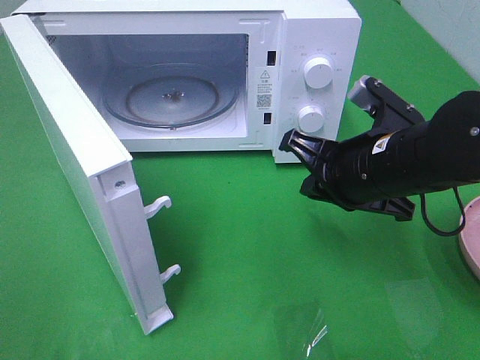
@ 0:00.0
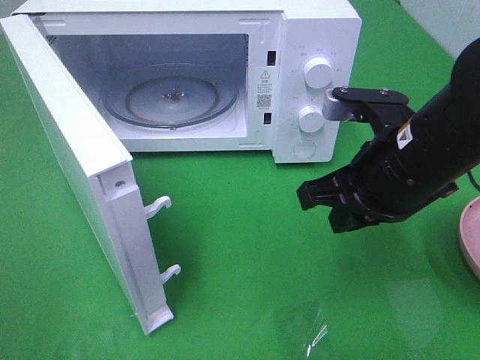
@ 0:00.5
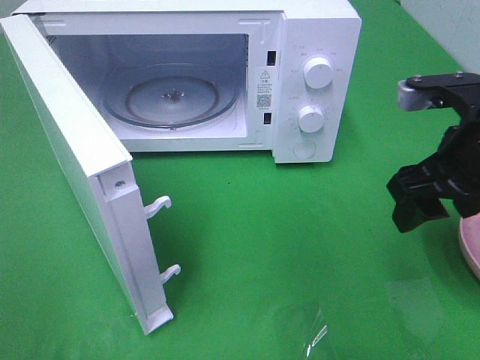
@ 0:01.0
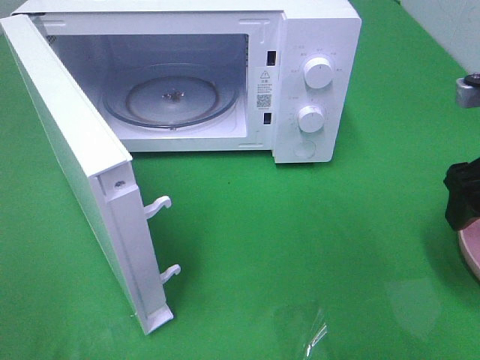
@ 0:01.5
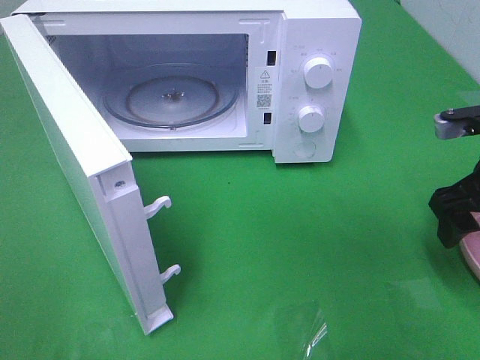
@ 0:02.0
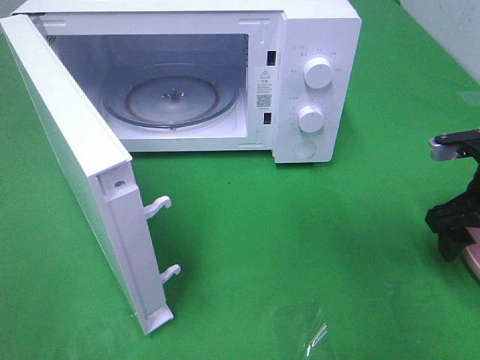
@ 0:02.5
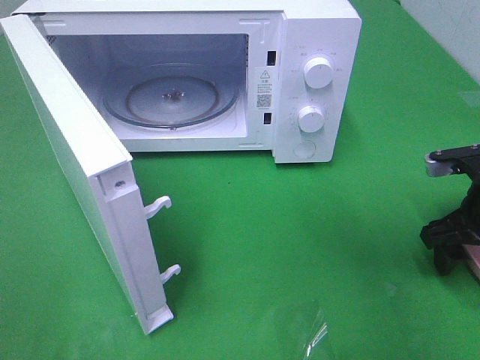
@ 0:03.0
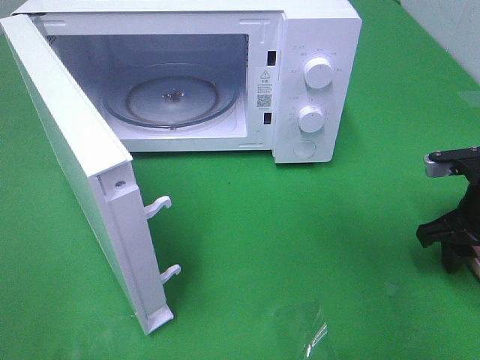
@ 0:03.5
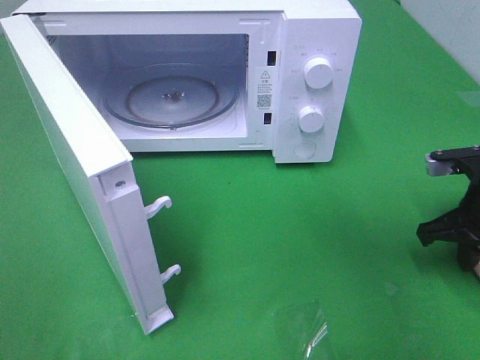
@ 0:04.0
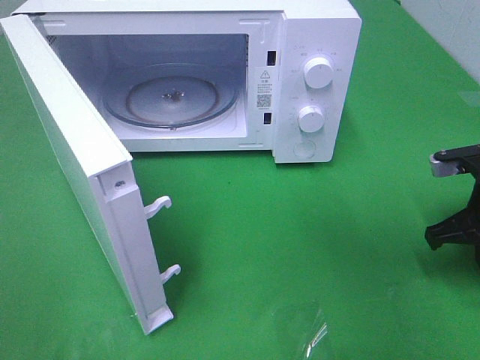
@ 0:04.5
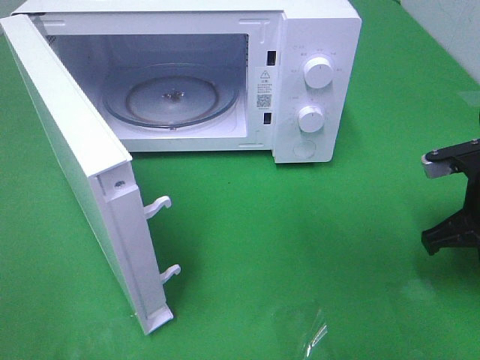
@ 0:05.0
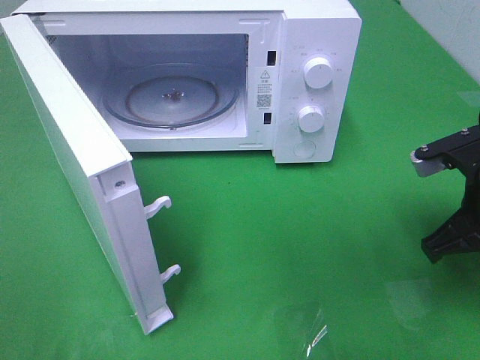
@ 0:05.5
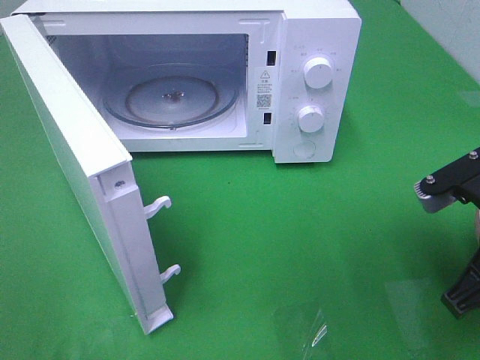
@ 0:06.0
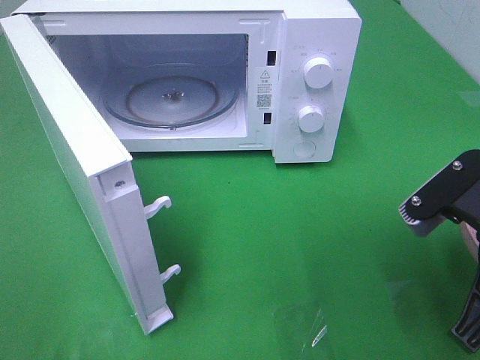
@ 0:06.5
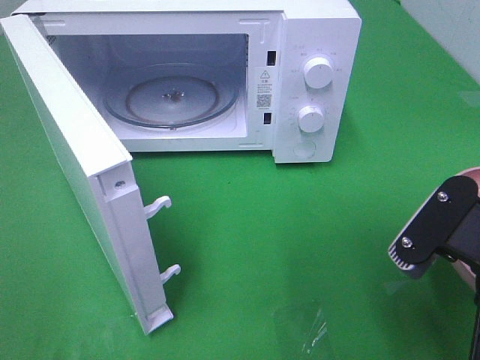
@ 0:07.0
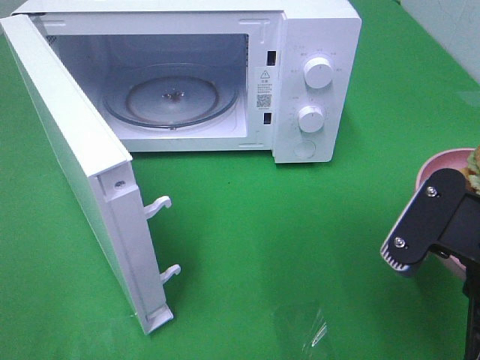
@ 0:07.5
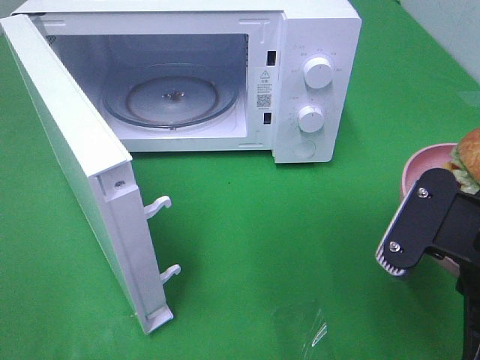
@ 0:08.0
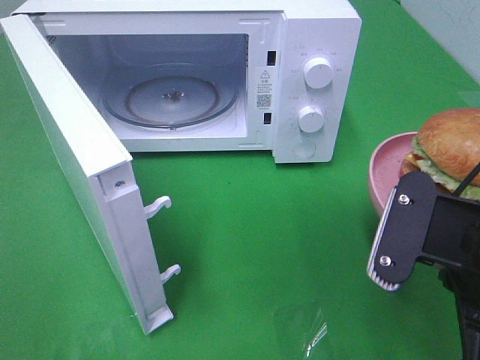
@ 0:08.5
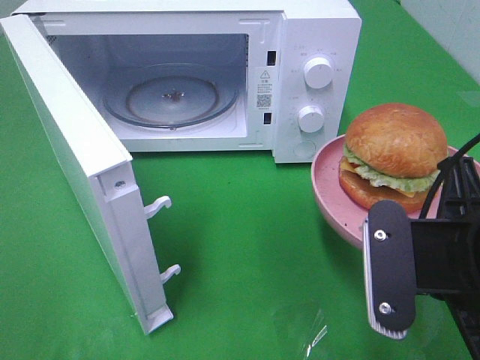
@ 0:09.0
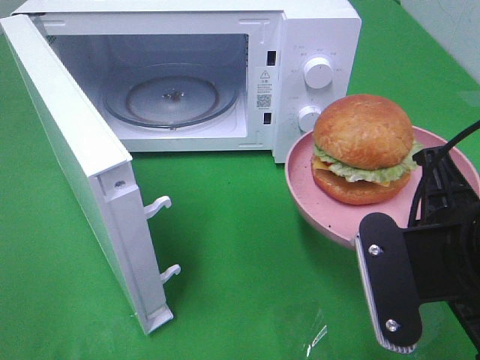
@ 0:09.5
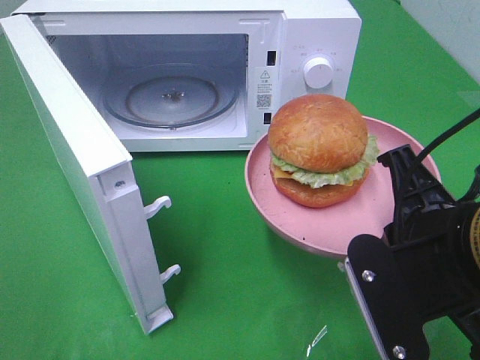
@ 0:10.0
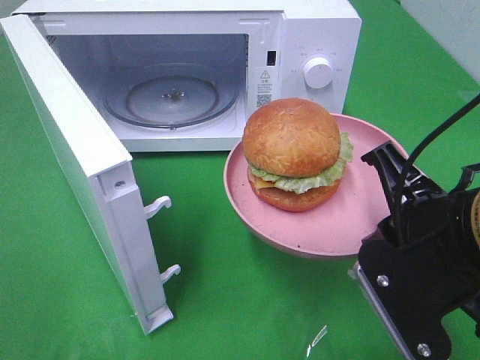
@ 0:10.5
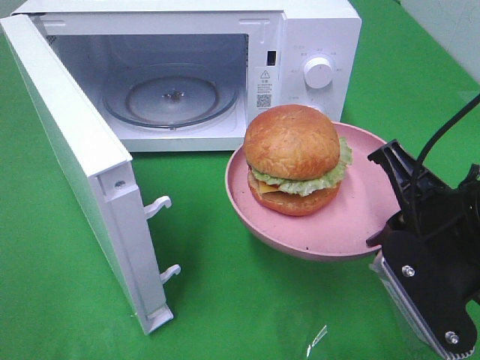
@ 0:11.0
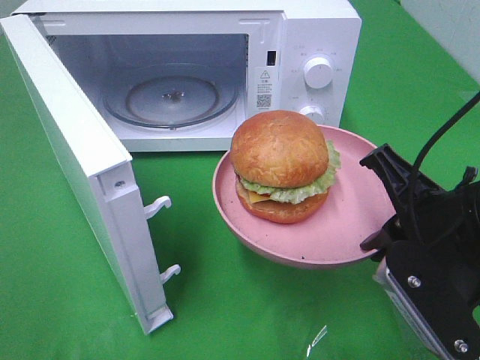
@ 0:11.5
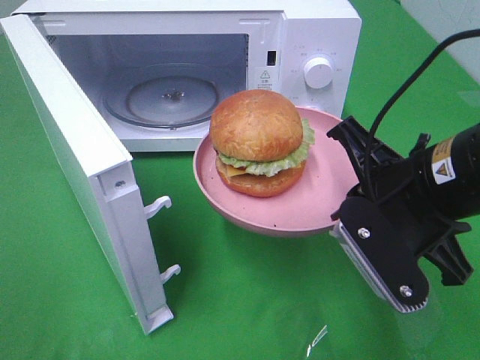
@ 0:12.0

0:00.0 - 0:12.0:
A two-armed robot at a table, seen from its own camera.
Task of the whole recording: Heat the burger.
Step, 0:00.0 - 0:05.0: Right hand: grab the plate with the hamburger.
0:00.0 - 0:02.0: The right gripper travels to the right by roughly 15 cm, and opens up.
0:02.0 - 0:04.0: The right gripper moves downward, roughly 5 cm, and closes.
0:04.0 - 0:06.0: The right gripper travels backward, upward and to the left by some 15 cm.
0:06.0 - 0:08.0: The right gripper moves roughly 5 cm.
0:10.0 - 0:12.0: The right gripper is displaced forward by about 5 cm.

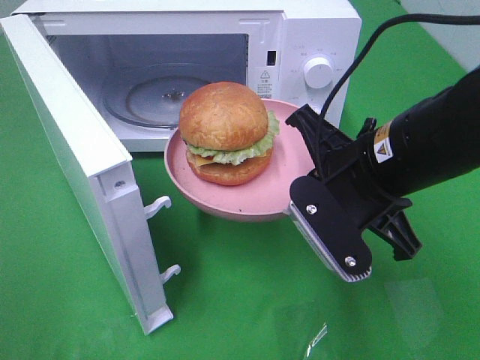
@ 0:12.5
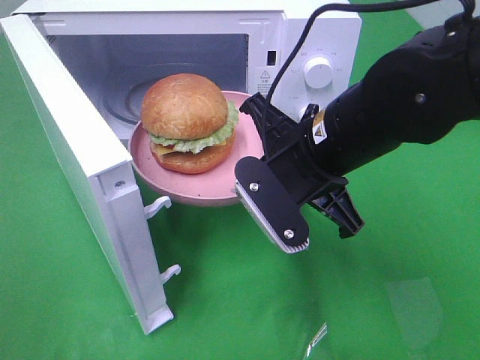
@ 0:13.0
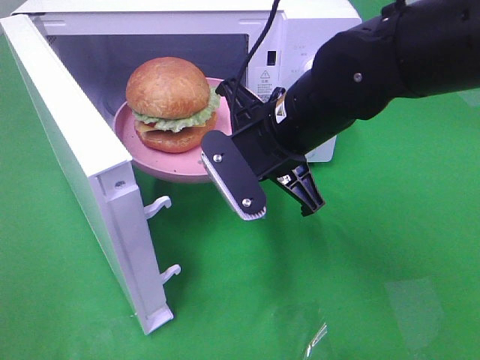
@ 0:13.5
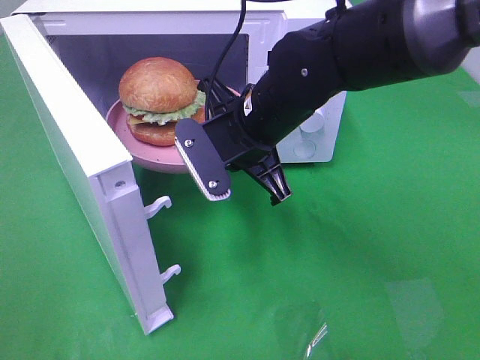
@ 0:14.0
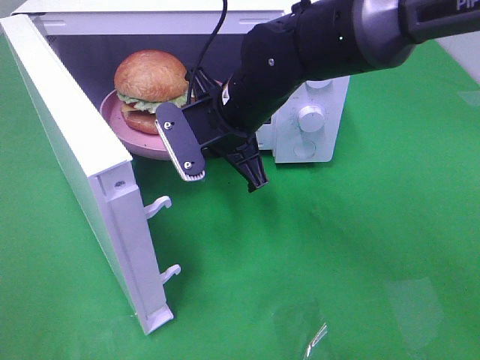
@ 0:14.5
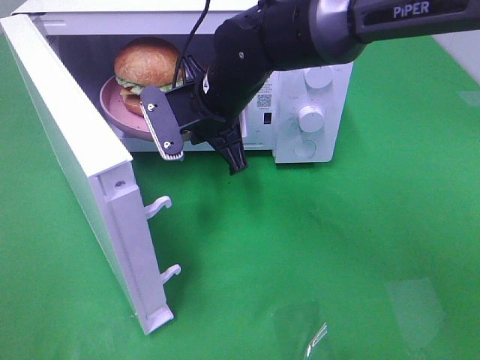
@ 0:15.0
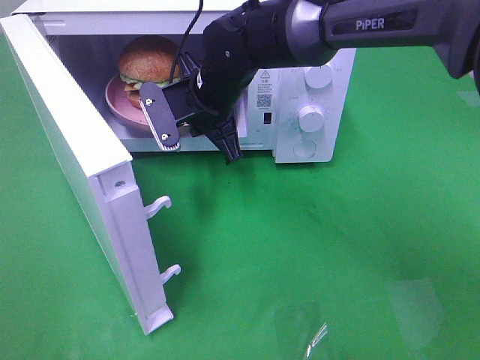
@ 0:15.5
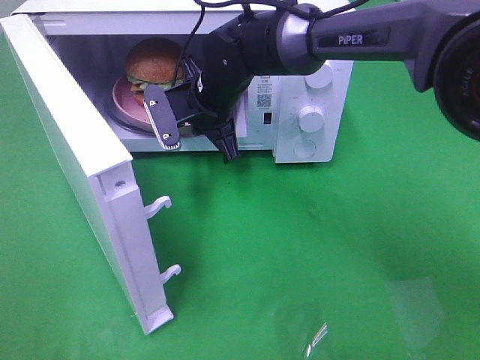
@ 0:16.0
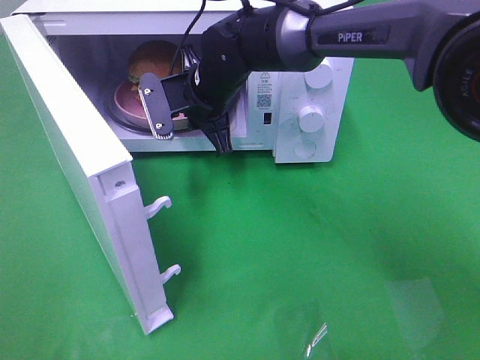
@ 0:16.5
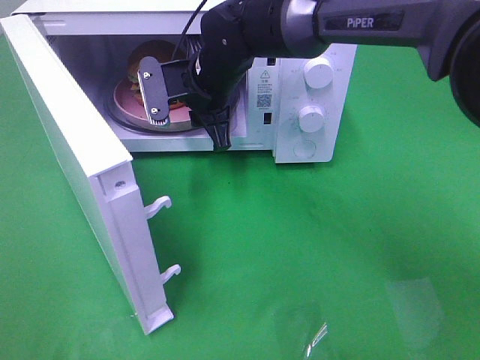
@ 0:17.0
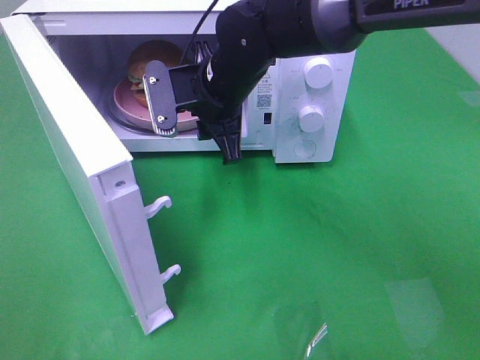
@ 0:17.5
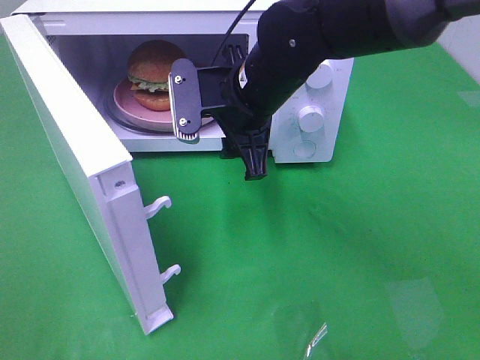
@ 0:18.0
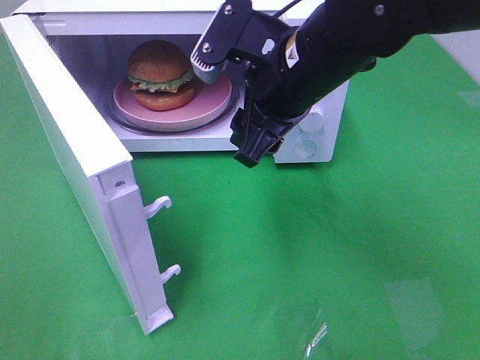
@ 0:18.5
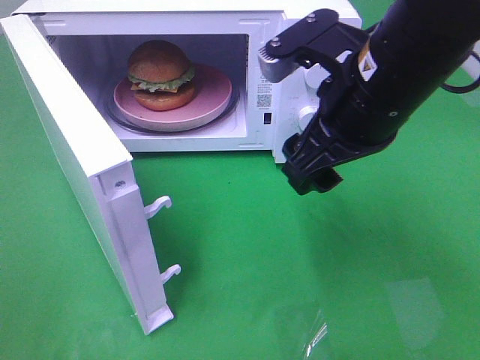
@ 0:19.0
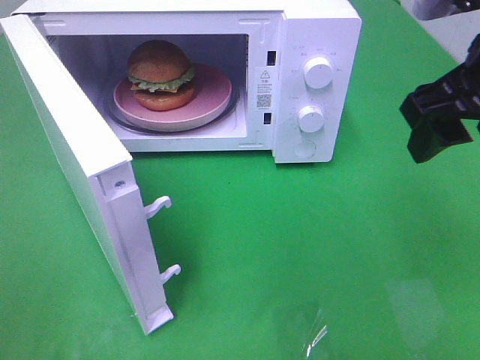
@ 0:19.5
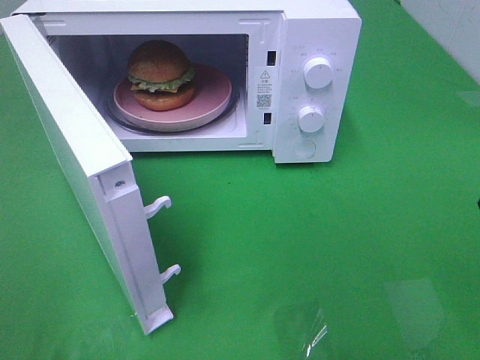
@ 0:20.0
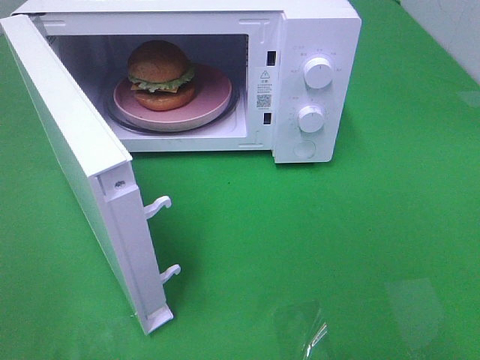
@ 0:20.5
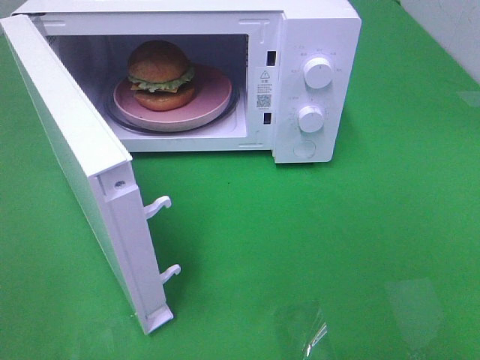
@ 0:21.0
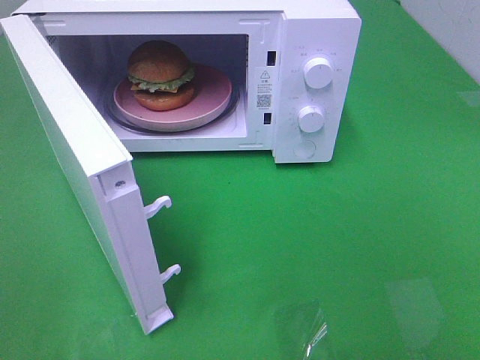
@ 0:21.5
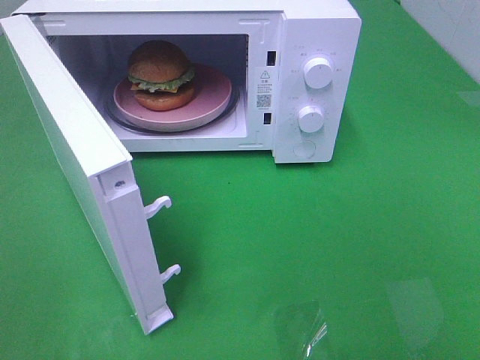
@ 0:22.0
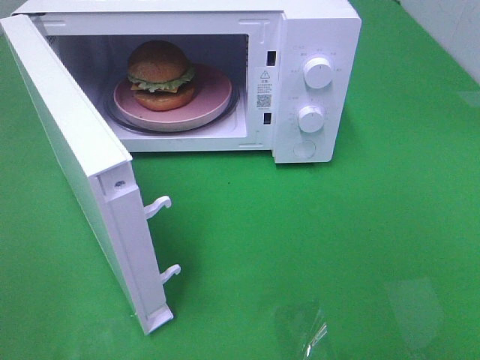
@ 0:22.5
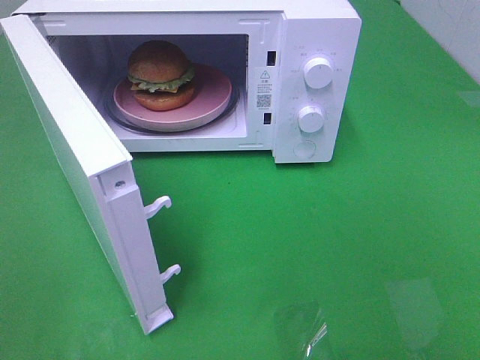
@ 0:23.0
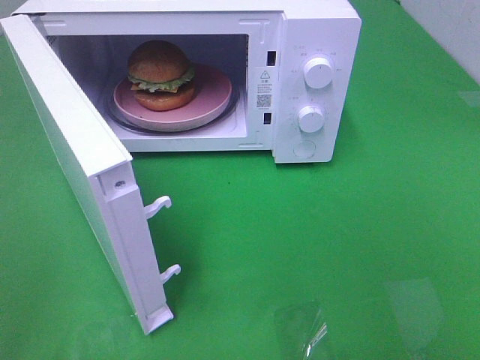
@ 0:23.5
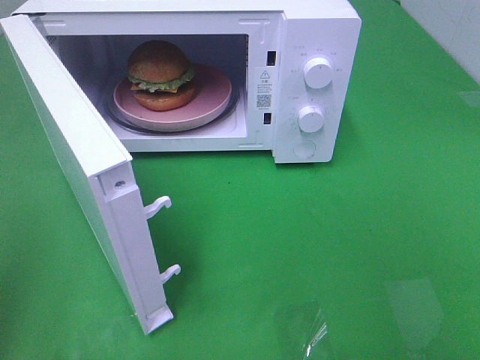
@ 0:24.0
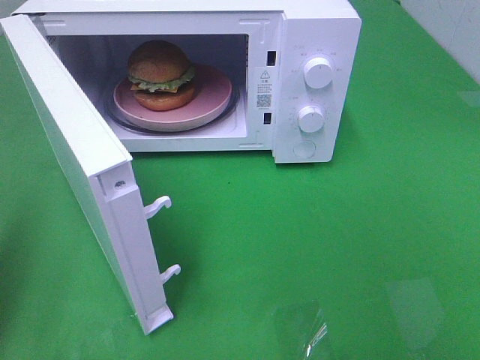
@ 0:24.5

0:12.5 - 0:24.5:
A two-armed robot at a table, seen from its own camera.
Task of the whole recording: Heat the burger.
Step, 0:12.5 - 0:17.0: Right hand: place the plate in the microwave.
0:12.5 - 0:14.5: The right gripper heads forward and to the left, covering about 15 cm.
0:14.5 - 0:16.5: The right gripper is displaced forward by approximately 10 cm.
0:16.5 - 0:18.5: The right gripper shifts approximately 20 cm backward, to the right and upward, and opens its fingers.
0:18.5 - 0:20.5: The right gripper is displaced backward and to the right by about 30 cm.
0:22.5 - 0:24.5: The left gripper is displaced forward by some 15 cm, and closes.

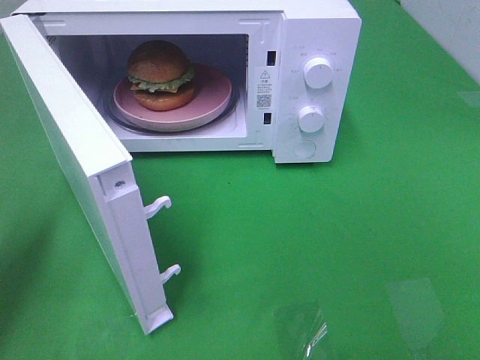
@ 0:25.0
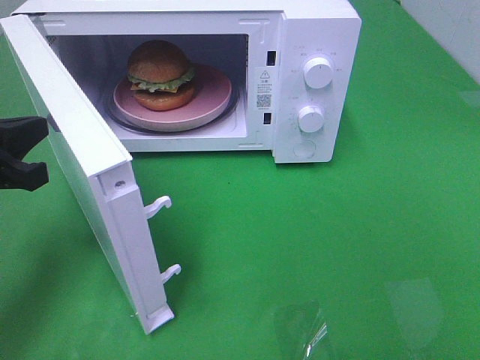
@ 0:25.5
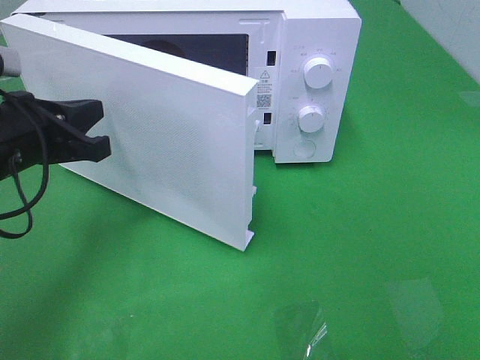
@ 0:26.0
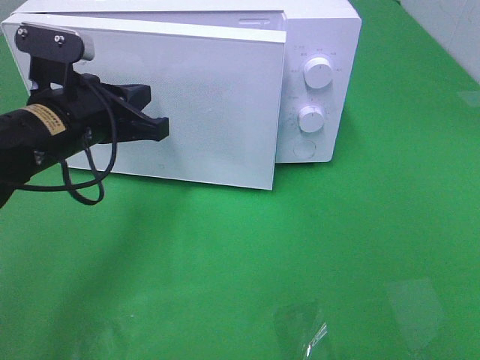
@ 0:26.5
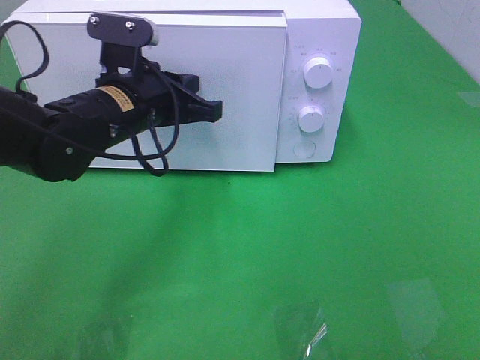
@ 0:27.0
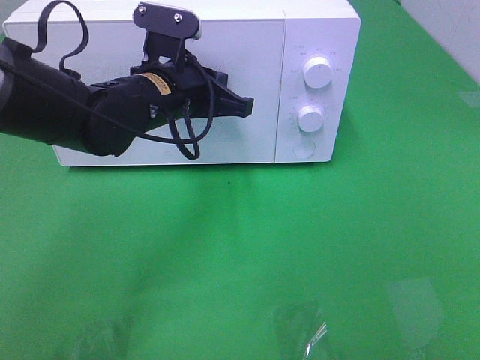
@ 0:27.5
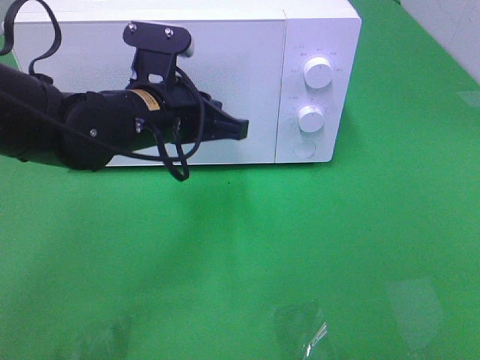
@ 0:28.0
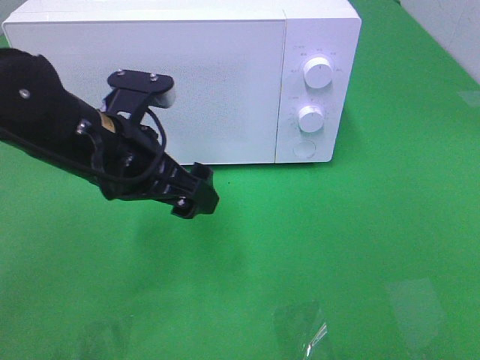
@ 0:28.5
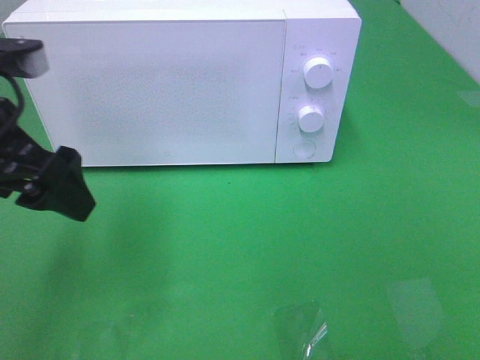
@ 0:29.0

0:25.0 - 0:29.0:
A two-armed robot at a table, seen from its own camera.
Task of the whole recording: Heat the burger.
Step, 0:25.0 - 0:28.0: Left hand: close the microwave door.
0:25.0 - 0:27.0: The left gripper goes about 25 cm to the right and forward.
0:27.0 - 0:29.0: The left gripper goes some 15 cm to the left, backward and upward, and opens its fingers.
